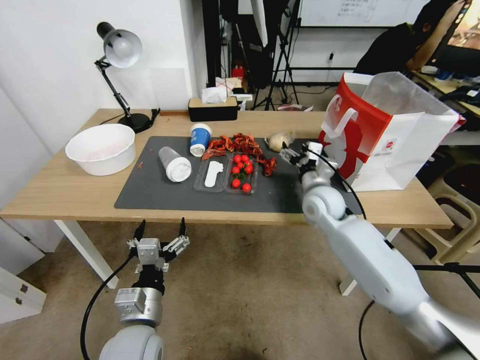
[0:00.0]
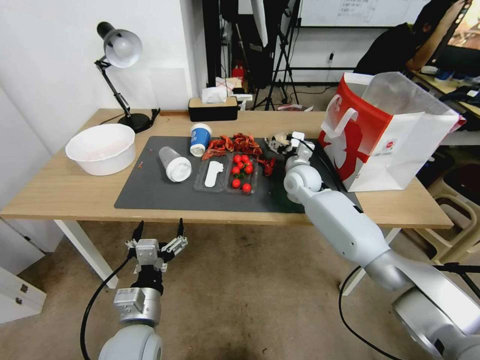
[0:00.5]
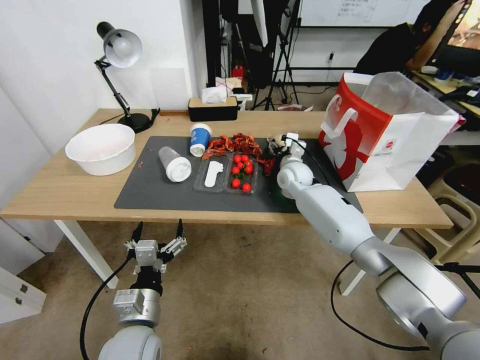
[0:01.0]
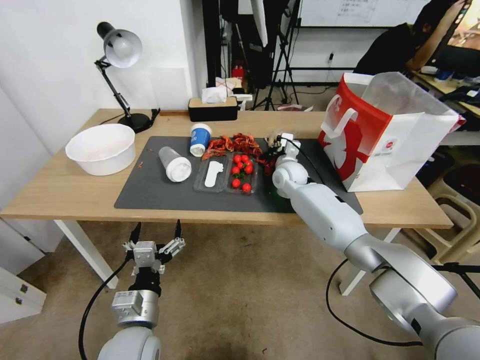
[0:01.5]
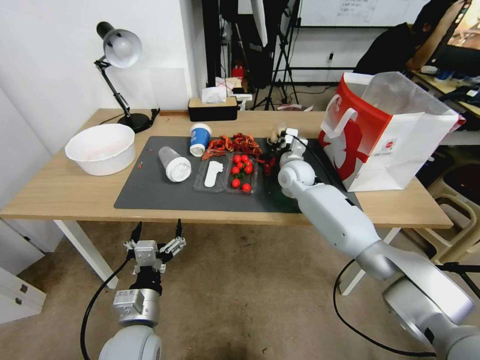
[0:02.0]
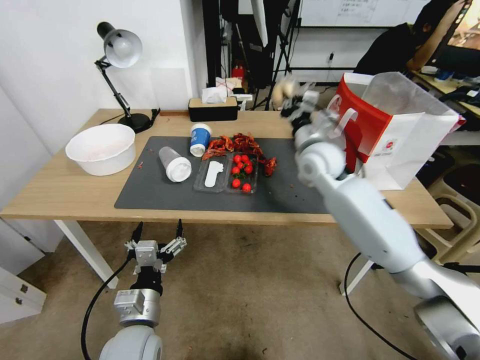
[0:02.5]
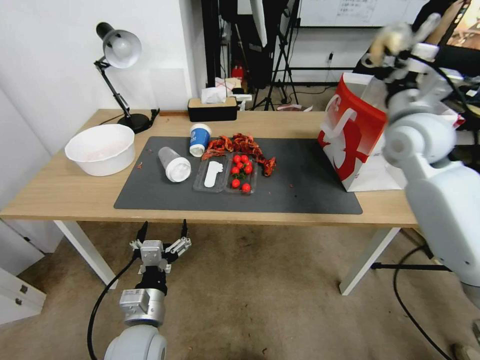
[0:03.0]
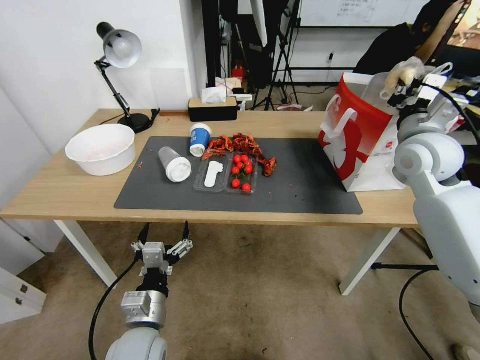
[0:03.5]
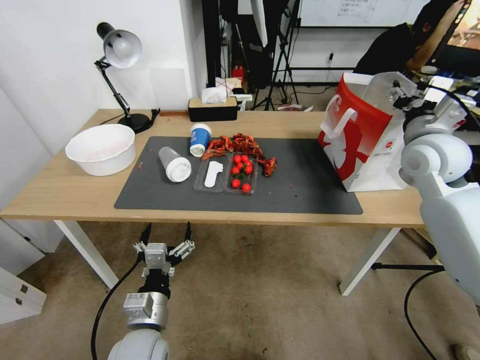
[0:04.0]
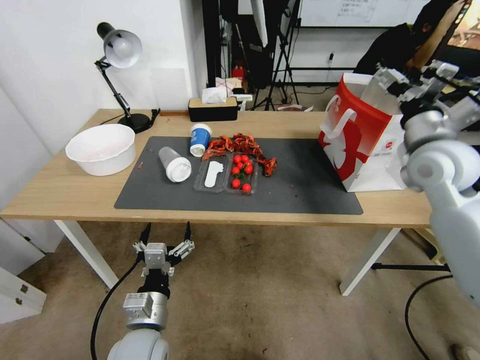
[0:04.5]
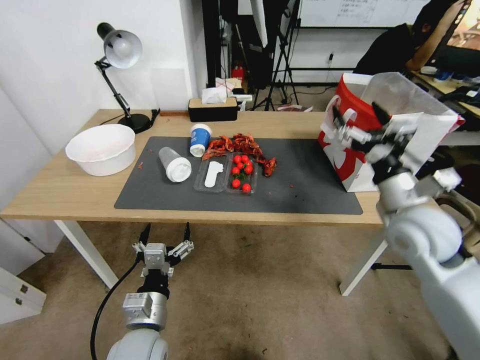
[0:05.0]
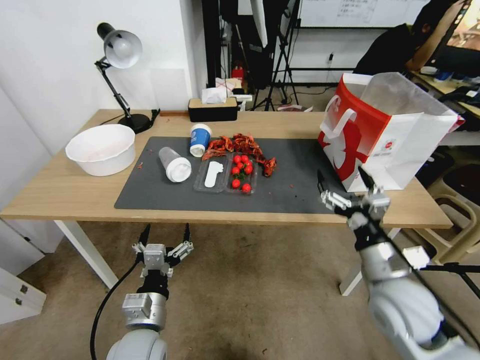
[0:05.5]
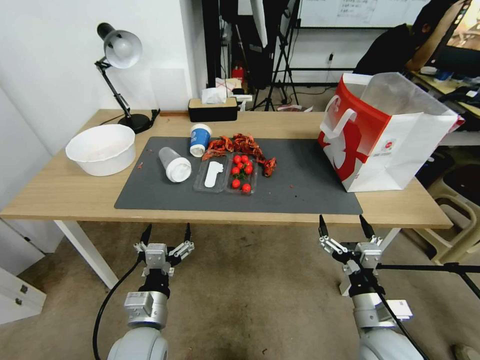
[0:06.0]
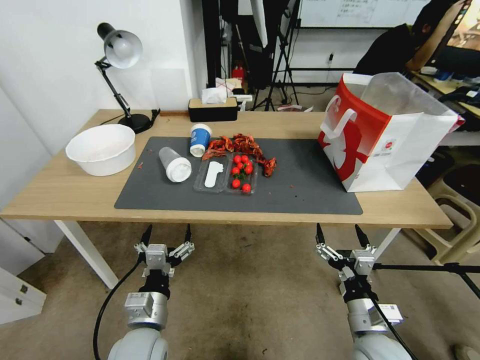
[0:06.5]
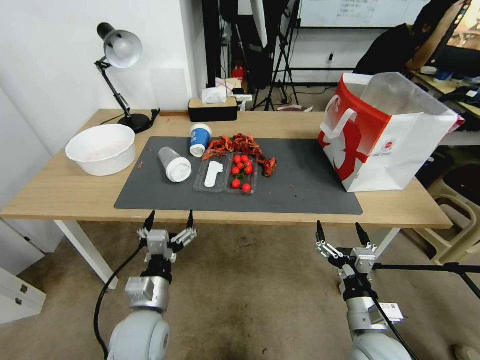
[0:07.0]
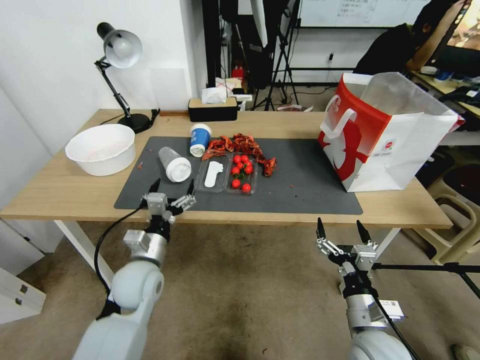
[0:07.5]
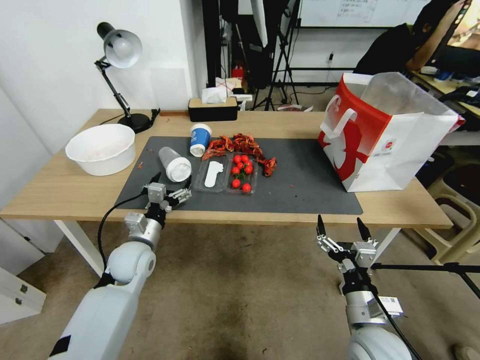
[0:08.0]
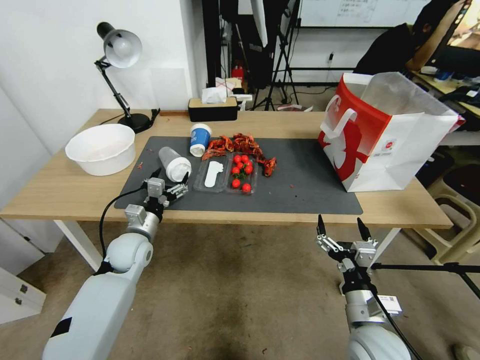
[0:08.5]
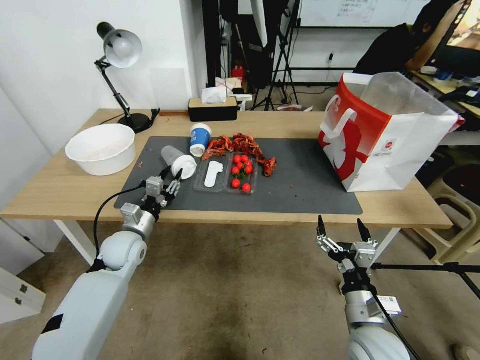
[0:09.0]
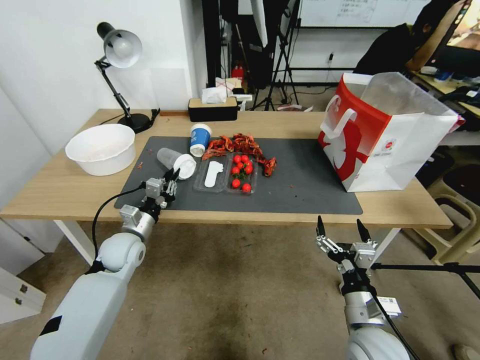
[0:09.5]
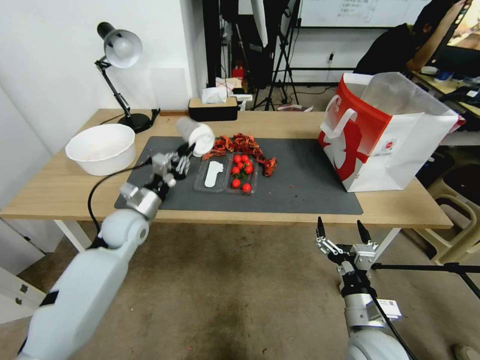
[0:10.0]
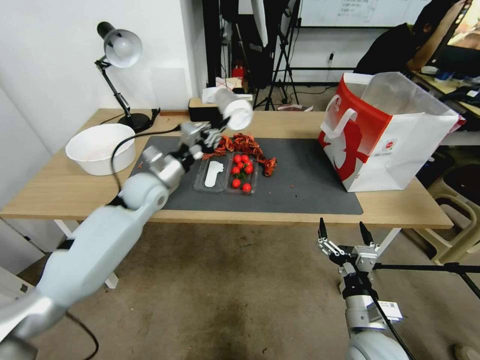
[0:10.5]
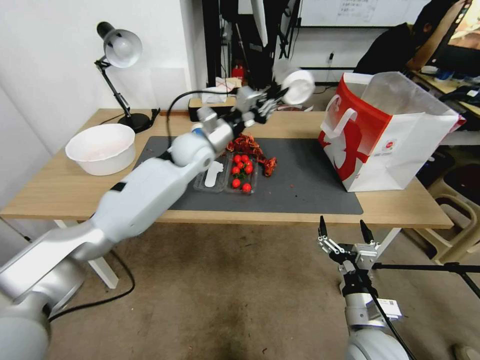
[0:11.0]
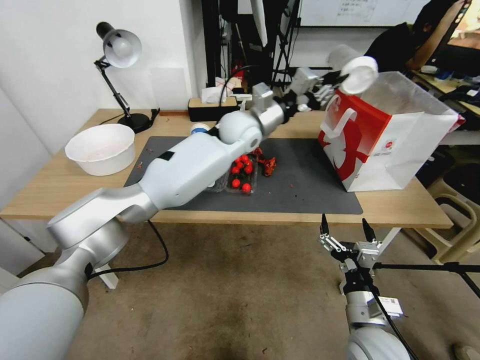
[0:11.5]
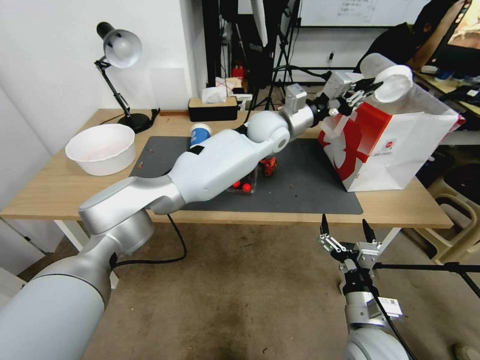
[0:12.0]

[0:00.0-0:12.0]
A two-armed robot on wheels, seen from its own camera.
0:00.0 to 0:02.0: The right gripper shifts roughly 10 cm forward, and closes.
0:02.0 to 0:04.0: The right gripper heads to the right, upward and backward, covering some 30 cm, and opens up.
0:04.0 to 0:06.0: The right gripper travels backward and downward by approximately 35 cm, and opens its fingers.
0:06.0 to 0:08.0: The left gripper heads forward and to the left, covering roughly 20 cm.
0:08.0 to 0:10.0: The left gripper closes.
0:10.0 to 0:12.0: The left gripper moves to the right, upward and forward, approximately 50 cm.

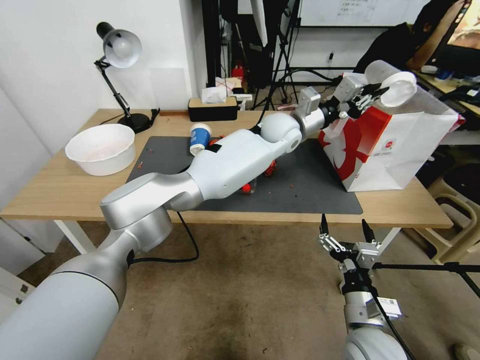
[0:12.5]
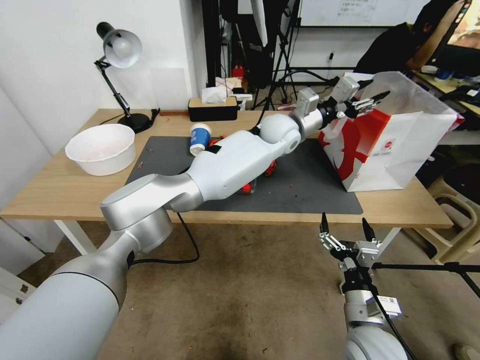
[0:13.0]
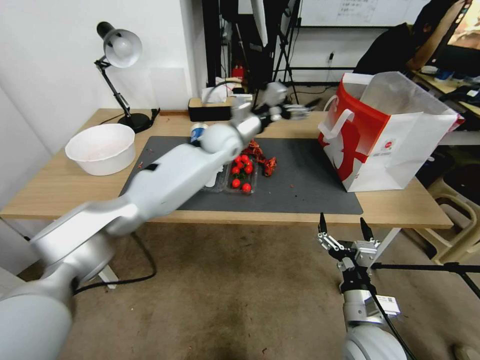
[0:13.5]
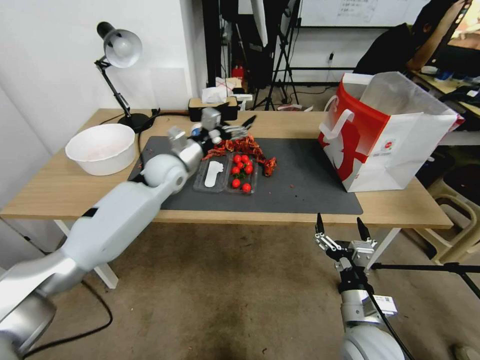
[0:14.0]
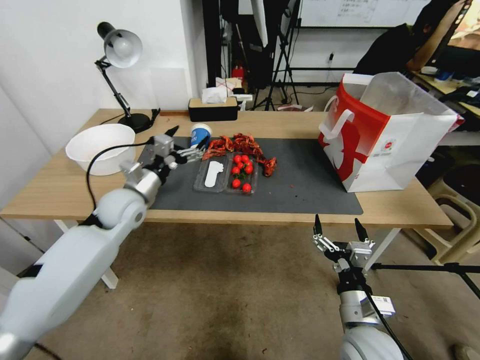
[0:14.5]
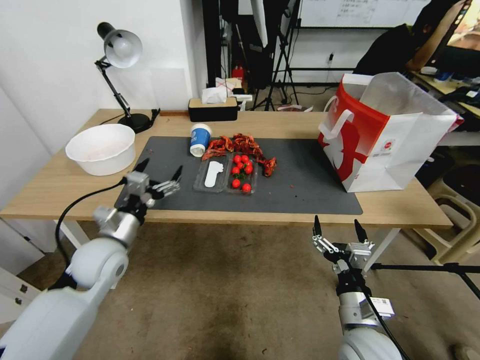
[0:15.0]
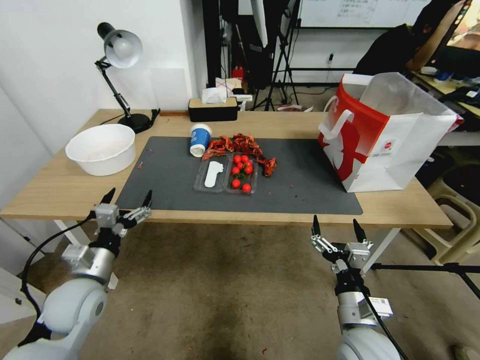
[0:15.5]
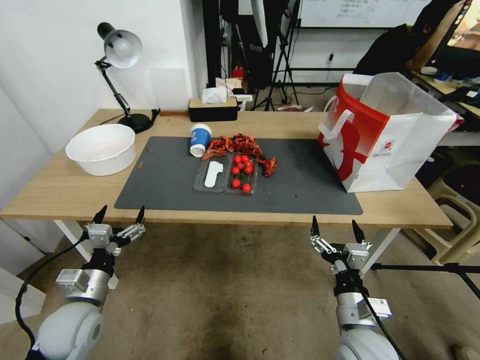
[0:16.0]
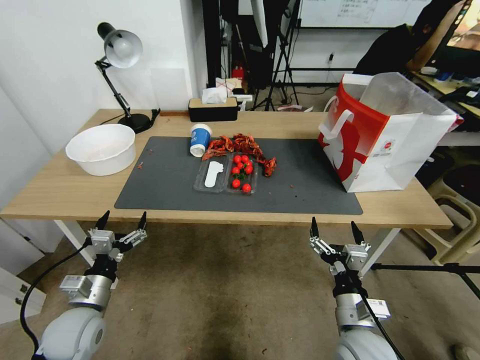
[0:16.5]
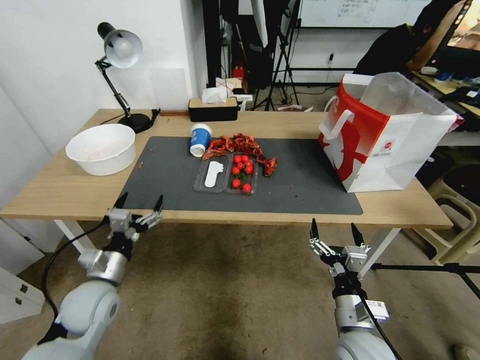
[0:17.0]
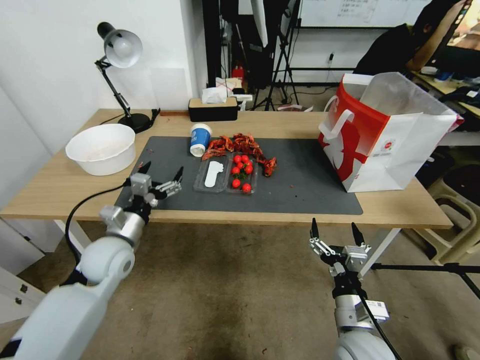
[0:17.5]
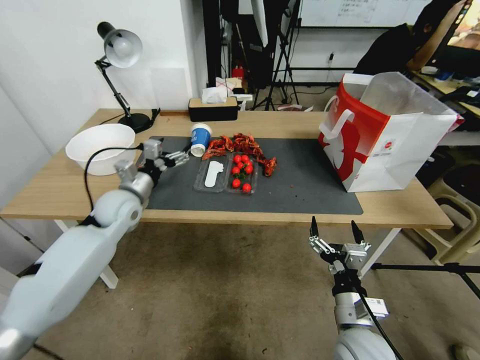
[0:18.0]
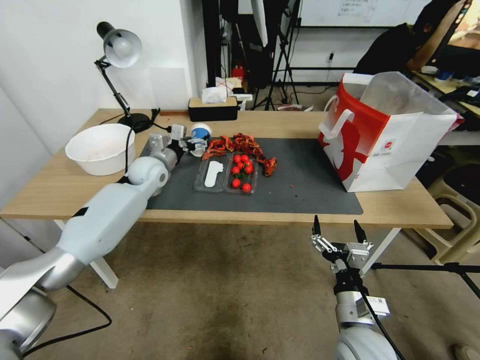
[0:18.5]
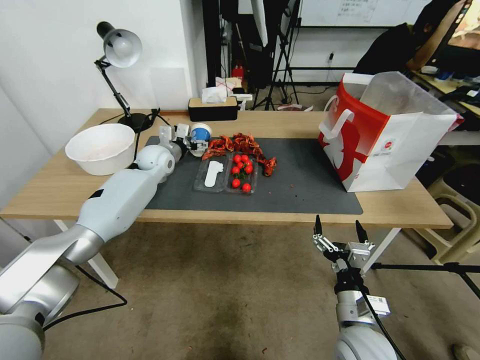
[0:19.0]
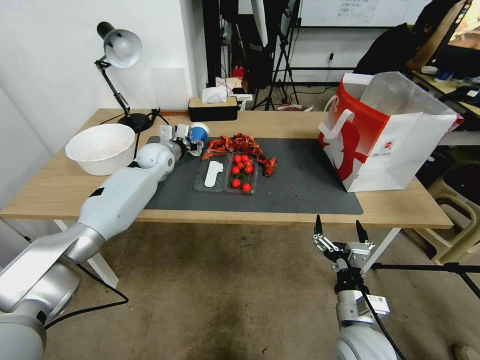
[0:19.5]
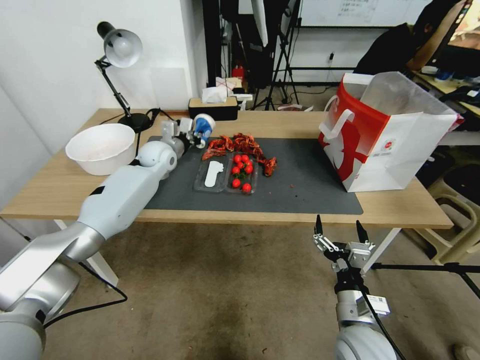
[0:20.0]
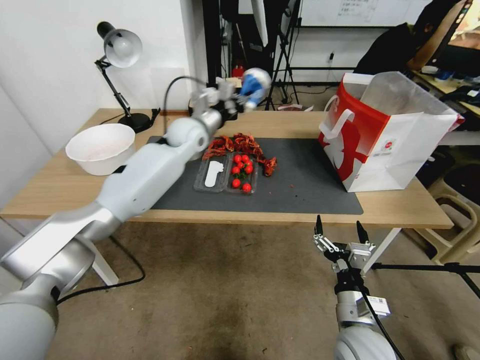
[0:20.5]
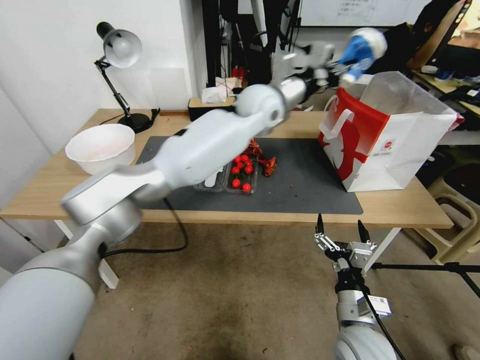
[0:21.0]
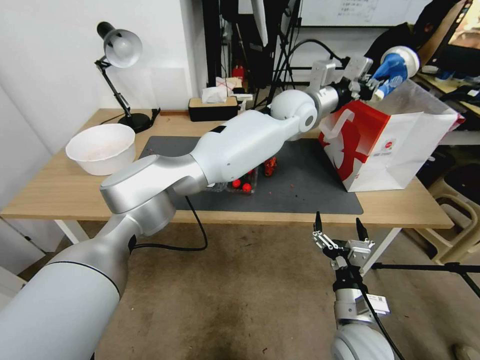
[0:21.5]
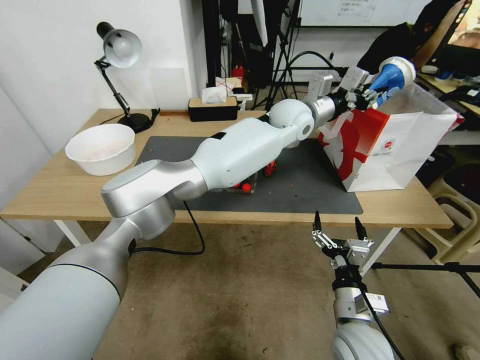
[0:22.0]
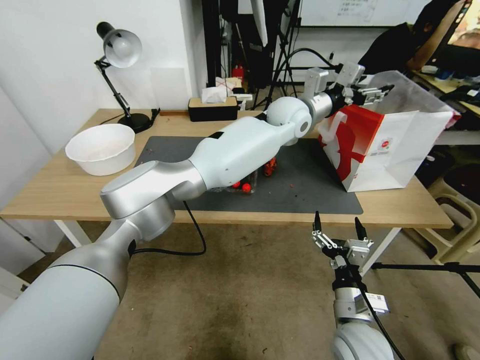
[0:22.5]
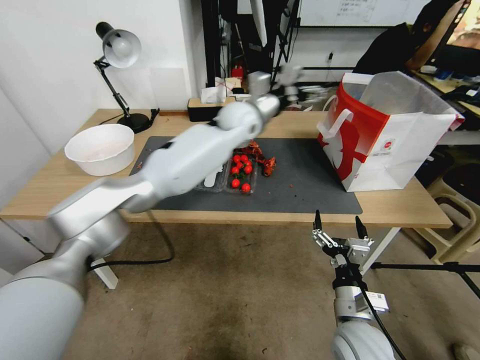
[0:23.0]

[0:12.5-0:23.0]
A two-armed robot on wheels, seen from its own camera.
0:12.5 to 0:14.5: The left gripper is displaced to the left by about 35 cm, and opens up.
0:14.5 to 0:16.5: The left gripper travels backward and downward by roughly 25 cm.
0:16.5 to 0:19.0: The left gripper heads forward, covering approximately 40 cm.
0:19.0 to 0:21.0: The left gripper goes about 35 cm to the right and upward, and closes up.
0:21.0 to 0:23.0: The left gripper travels to the left and downward by approximately 10 cm, and opens up.

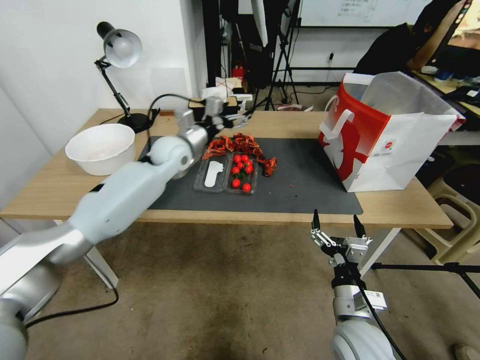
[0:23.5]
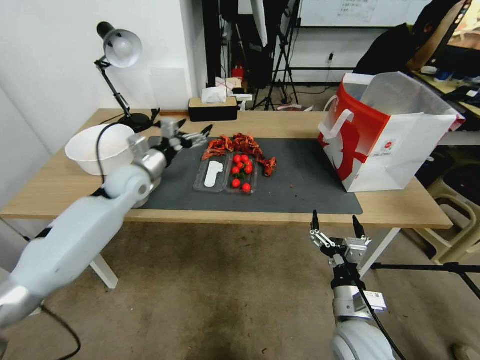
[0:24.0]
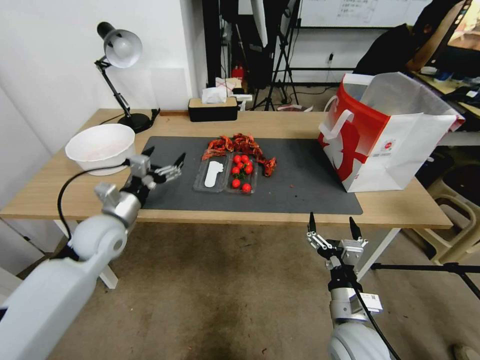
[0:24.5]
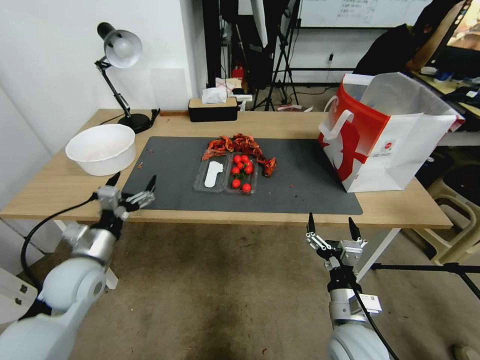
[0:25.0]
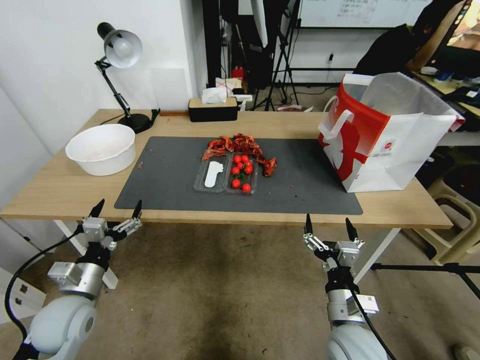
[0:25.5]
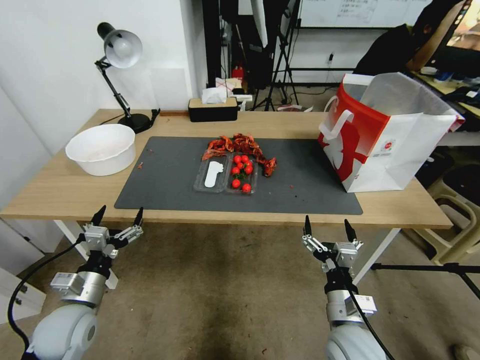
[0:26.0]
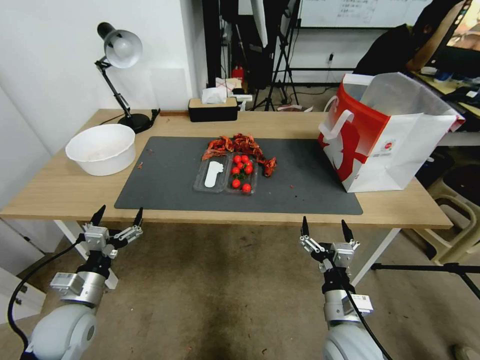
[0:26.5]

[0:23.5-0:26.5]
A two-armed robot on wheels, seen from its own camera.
0:23.5 to 0:25.0: The left gripper moves backward, to the left and downward, roughly 30 cm.
0:25.0 to 0:26.5: The left gripper heads backward and downward, covering some 10 cm.
